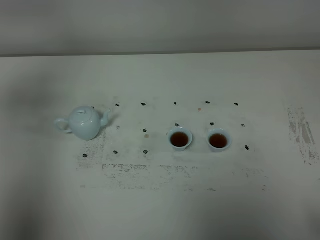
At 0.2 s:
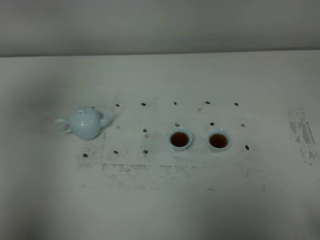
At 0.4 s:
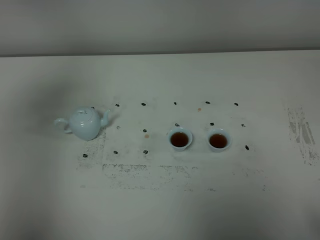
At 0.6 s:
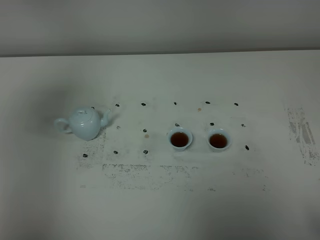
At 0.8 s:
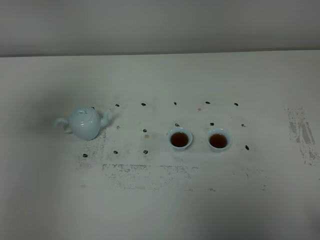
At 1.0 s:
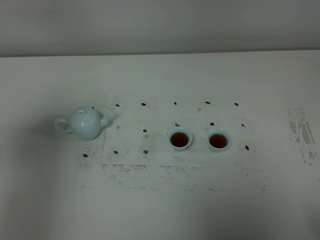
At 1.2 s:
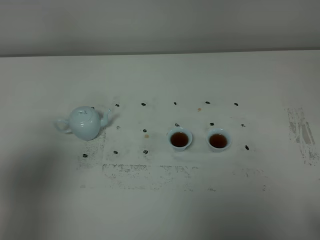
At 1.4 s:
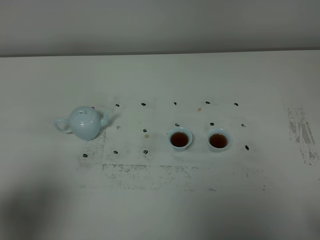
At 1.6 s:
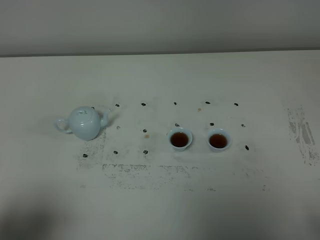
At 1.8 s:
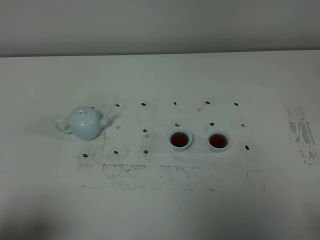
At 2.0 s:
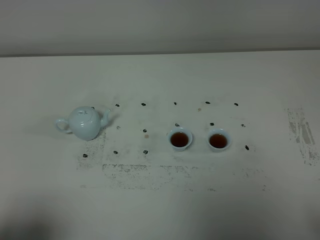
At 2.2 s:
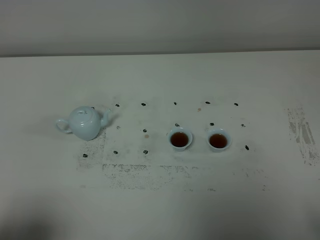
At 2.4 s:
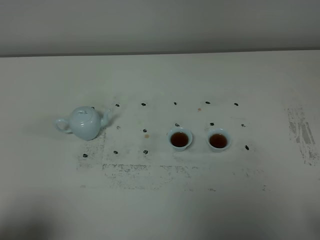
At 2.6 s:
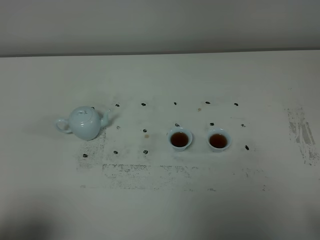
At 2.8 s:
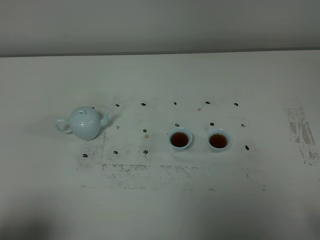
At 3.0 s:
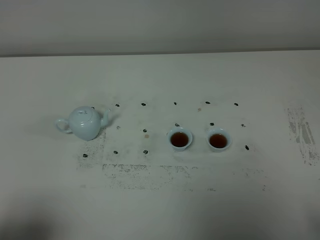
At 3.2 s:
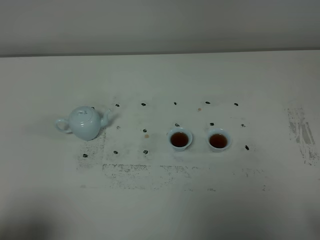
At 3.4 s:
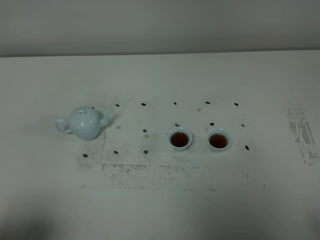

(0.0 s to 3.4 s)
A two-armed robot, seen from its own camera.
Task of the whole recording: grasp the blue porcelain teapot and pour the tea into the two blue porcelain teacups one by one, put the blue porcelain teapot back in its original place.
0.0 s - 1.6 s: The left gripper shifts some 30 cm backward and downward.
